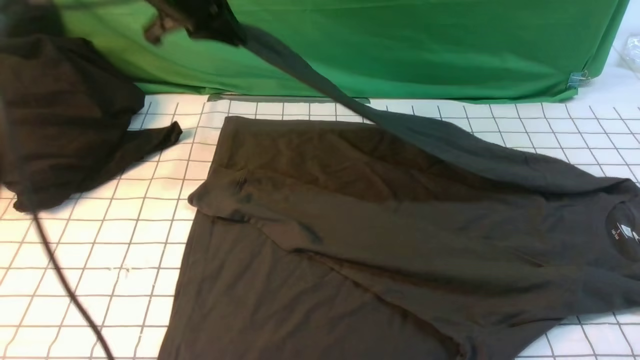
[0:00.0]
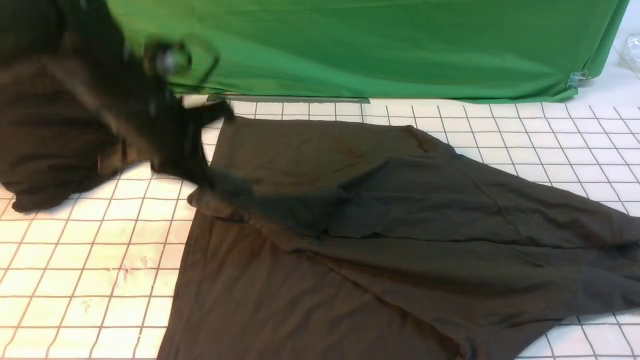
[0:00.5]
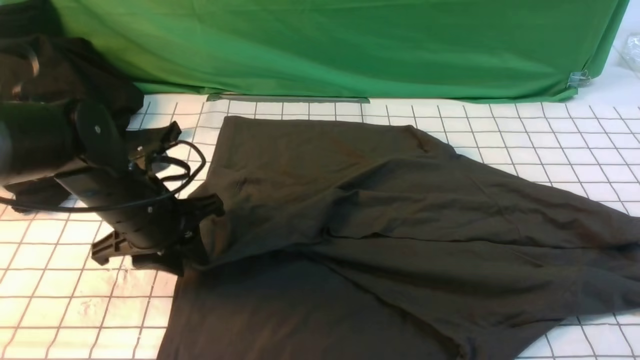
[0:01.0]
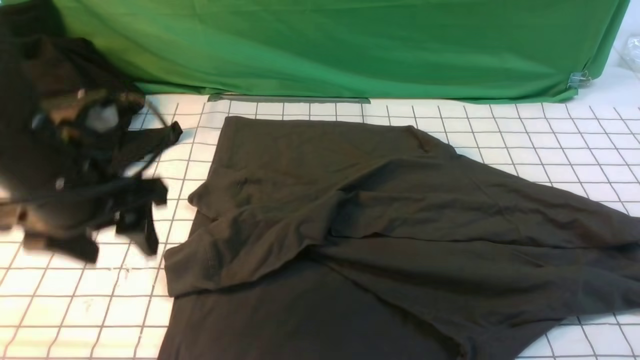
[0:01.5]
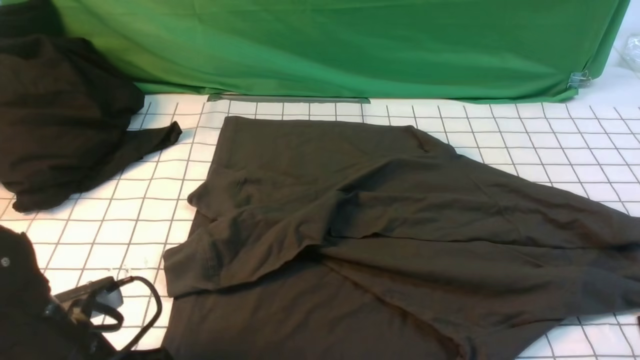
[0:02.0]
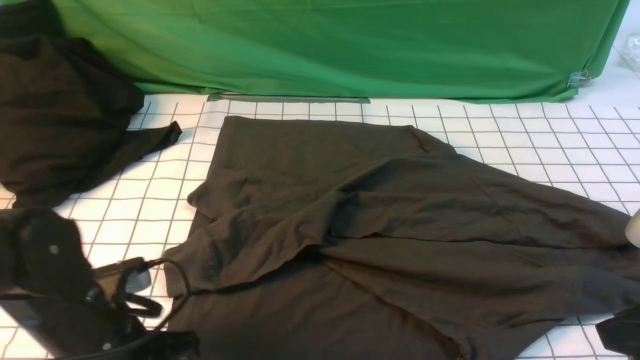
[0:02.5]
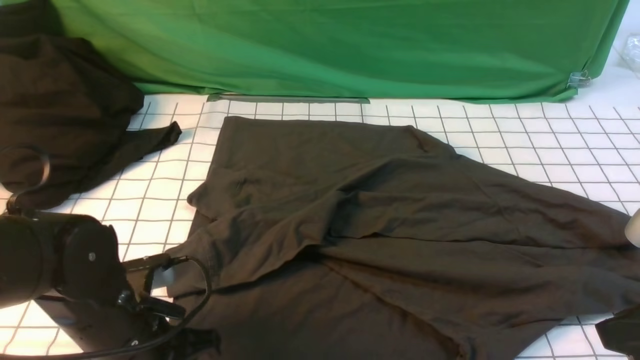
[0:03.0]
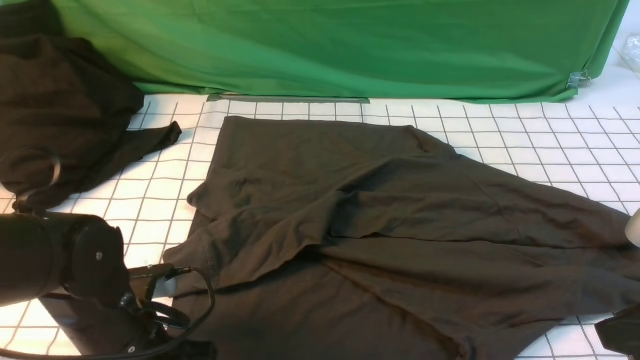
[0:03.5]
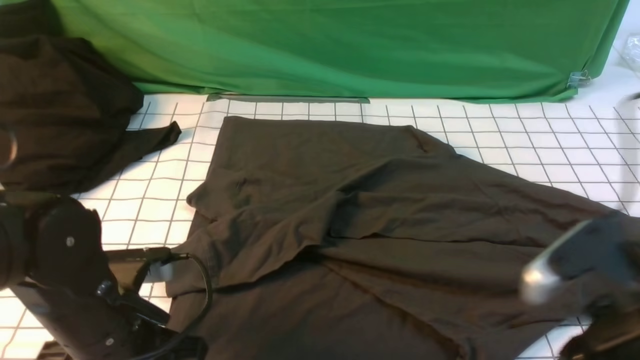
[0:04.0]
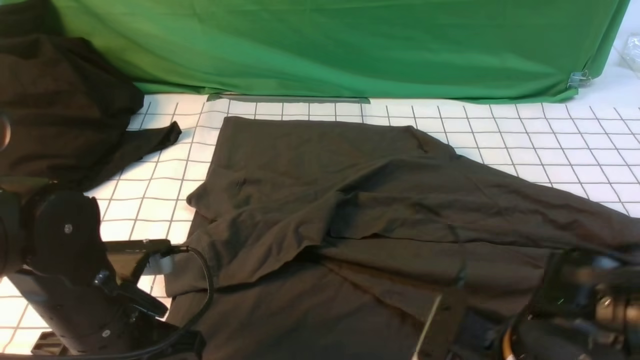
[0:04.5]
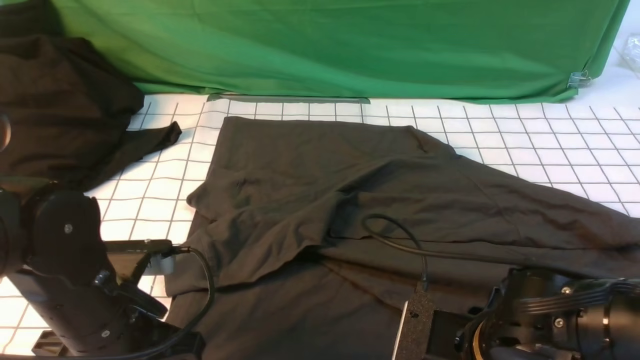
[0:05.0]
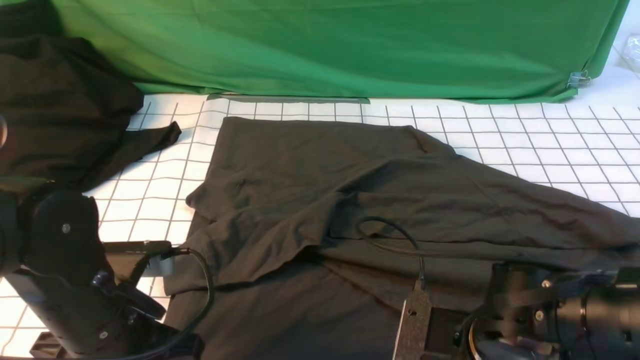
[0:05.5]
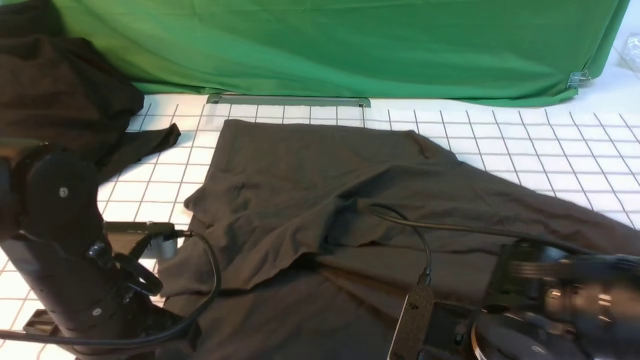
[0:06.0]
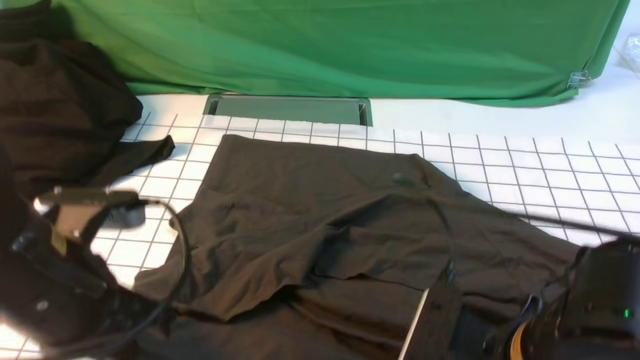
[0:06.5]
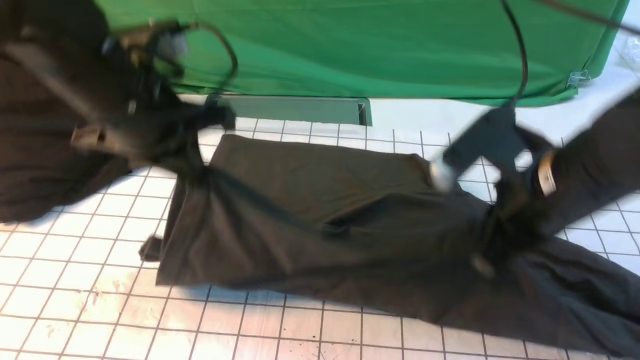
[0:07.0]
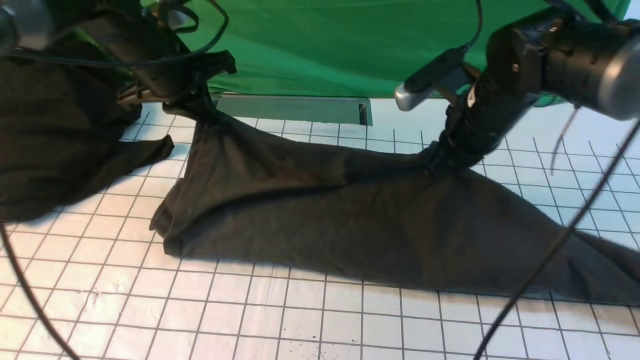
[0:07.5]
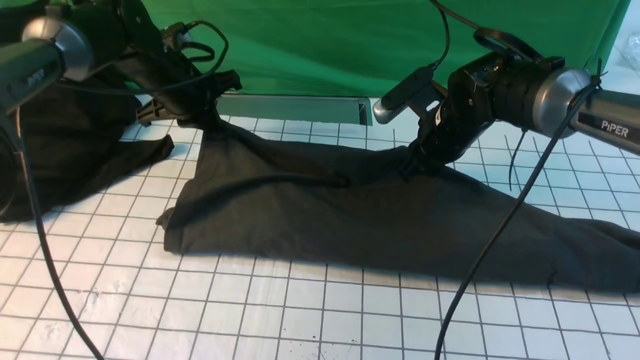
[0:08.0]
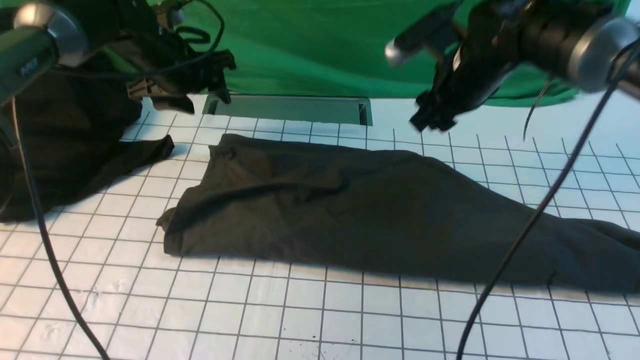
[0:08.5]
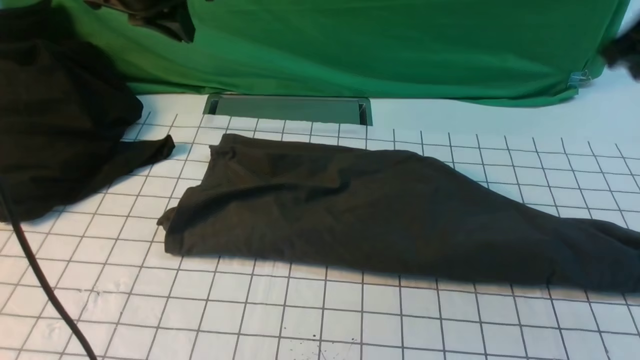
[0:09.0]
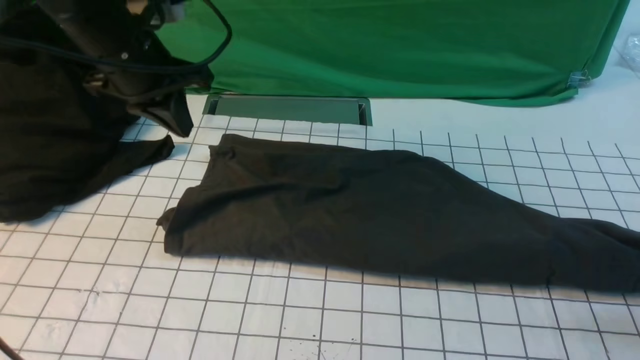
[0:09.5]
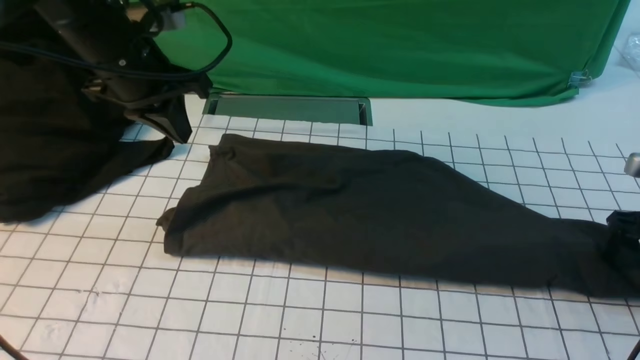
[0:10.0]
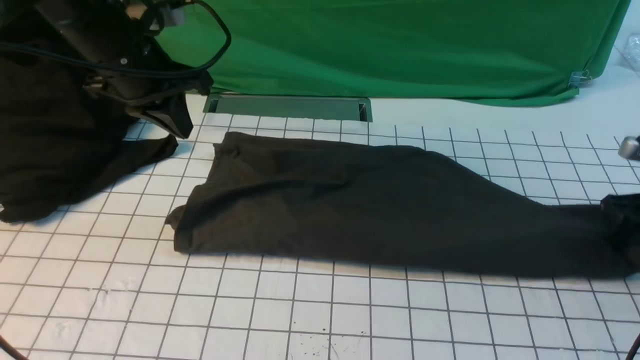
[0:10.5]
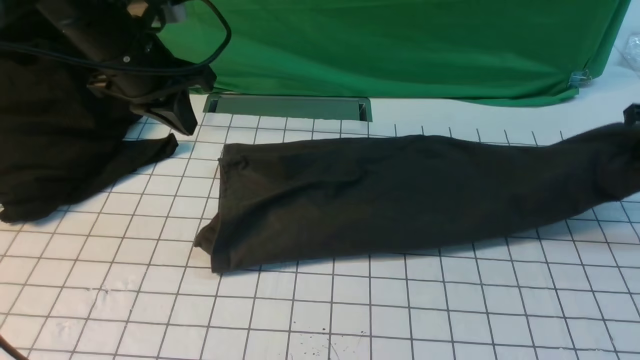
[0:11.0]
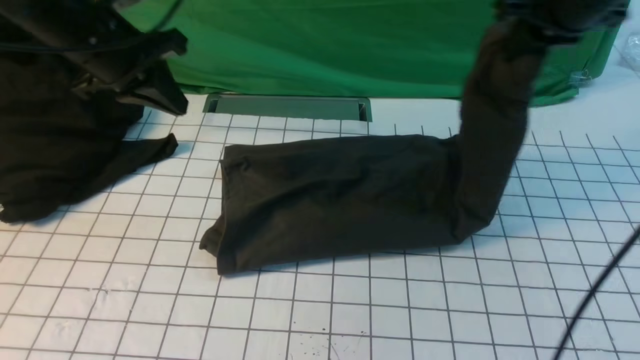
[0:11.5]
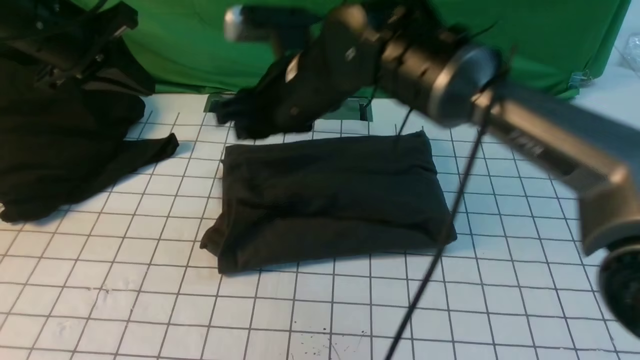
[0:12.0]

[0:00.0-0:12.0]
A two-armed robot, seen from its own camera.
Step, 0:00.0 to 0:01.0: use the left arm to drag and drop the cuff onto the cuff closest to the left arm.
Step, 0:01.5 to 0:05.5: use both arms simultaneously to clamp the lower edge of the clothing fabric.
Step, 0:06.0 to 0:08.0: use both arms to drag the lower edge of the fabric forward and fold it over the upper edge.
Step, 0:08.5 to 0:10.0: use the right arm to clamp the right edge of the fabric.
0:00.0 to 0:02.0: The left gripper goes some 35 cm backward and downward, and opens.
0:02.0 to 0:04.0: The left gripper closes its fingers. Meanwhile the right gripper goes about 10 cm to the left and downward.
0:04.0 to 0:06.0: The right gripper shifts about 10 cm to the left and downward, and closes up.
0:06.0 to 0:08.0: The grippers both shift forward by approximately 30 cm. The right gripper opens its fingers.
0:08.0 to 0:10.0: The left gripper goes about 10 cm backward and upward, and opens, then closes once more. Meanwhile the right gripper moves to the right, approximately 25 cm, and closes, then reopens.
0:10.0 to 0:12.0: The left gripper shifts about 10 cm to the left. Meanwhile the right gripper goes some 40 cm to the left, and closes and opens again.

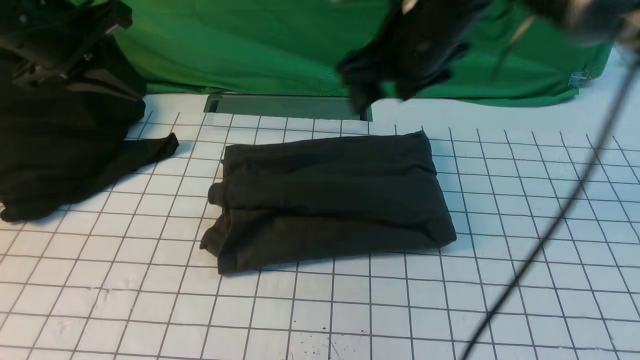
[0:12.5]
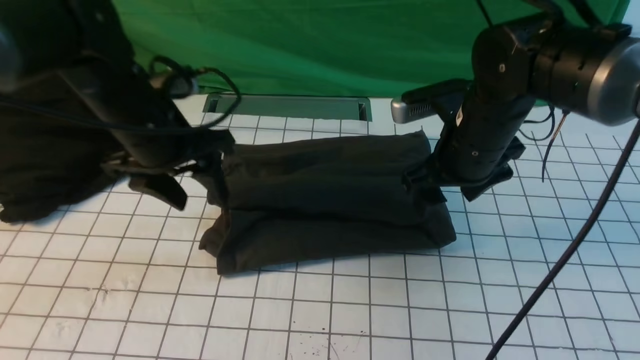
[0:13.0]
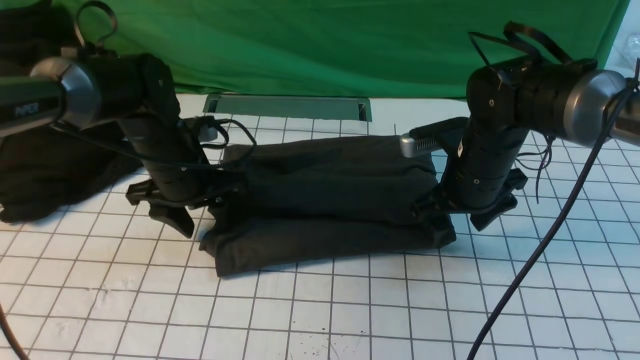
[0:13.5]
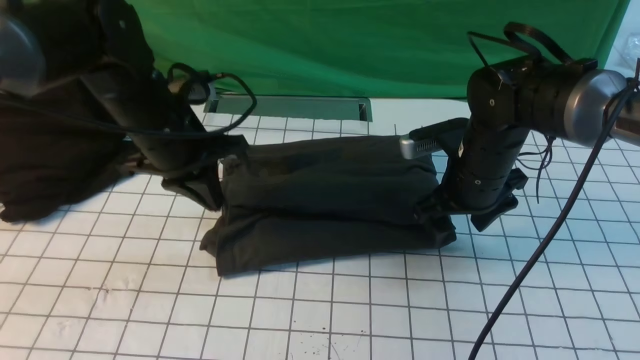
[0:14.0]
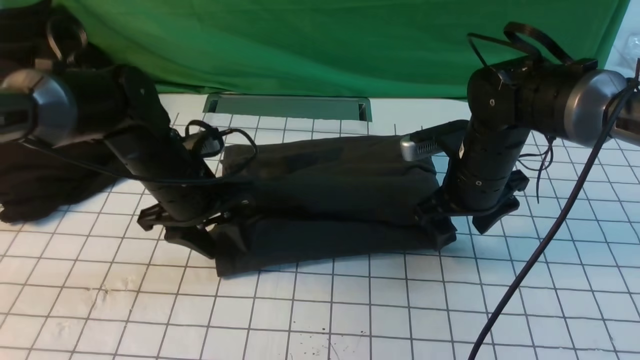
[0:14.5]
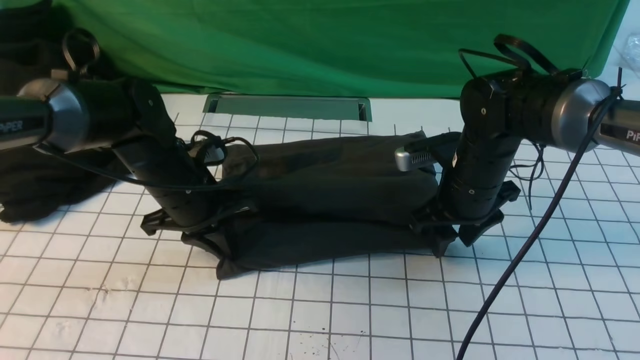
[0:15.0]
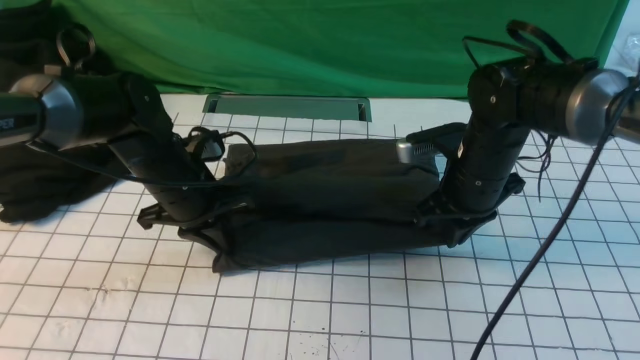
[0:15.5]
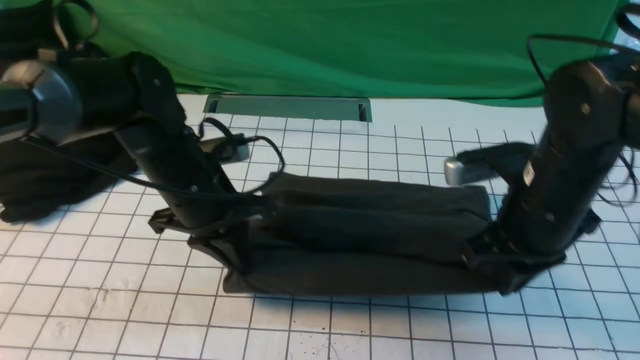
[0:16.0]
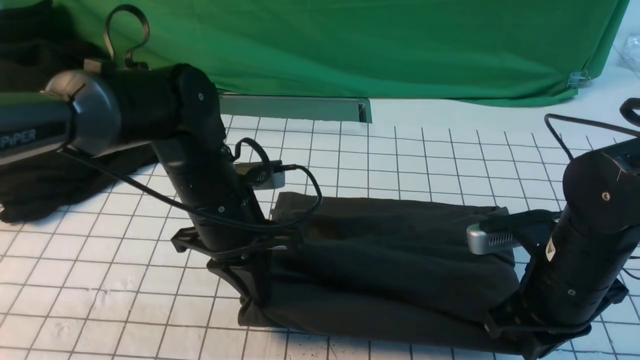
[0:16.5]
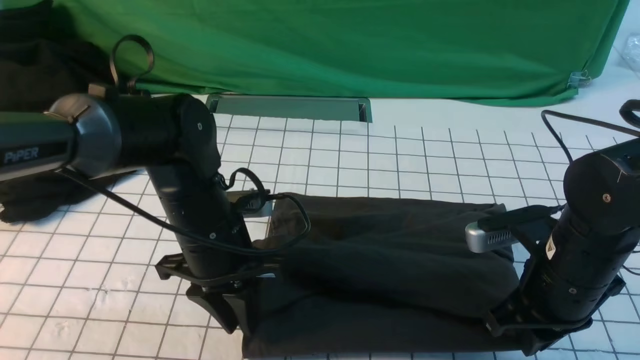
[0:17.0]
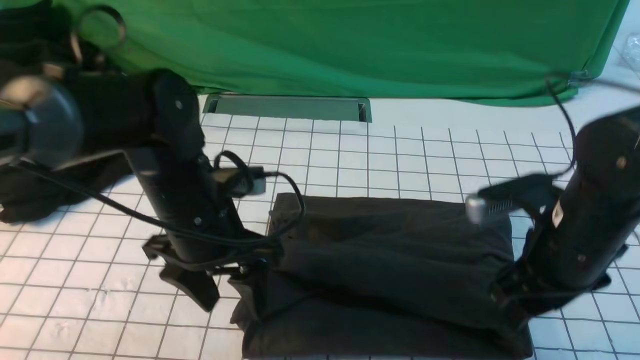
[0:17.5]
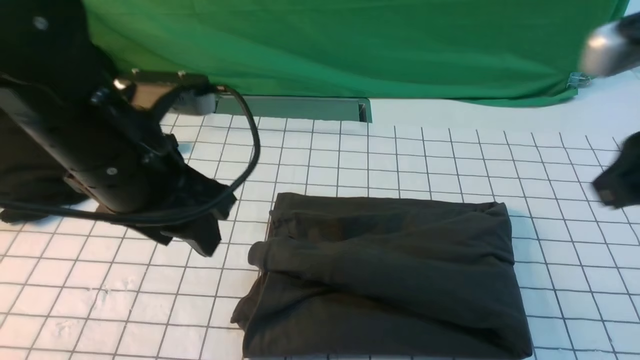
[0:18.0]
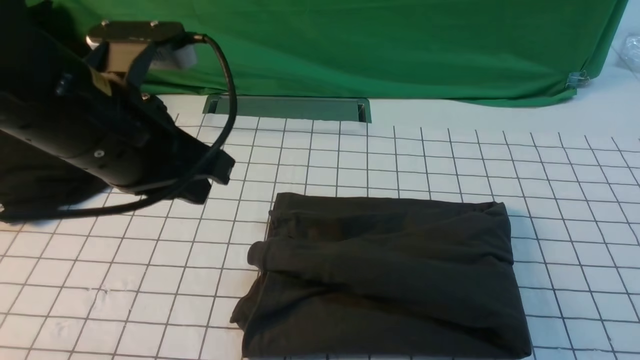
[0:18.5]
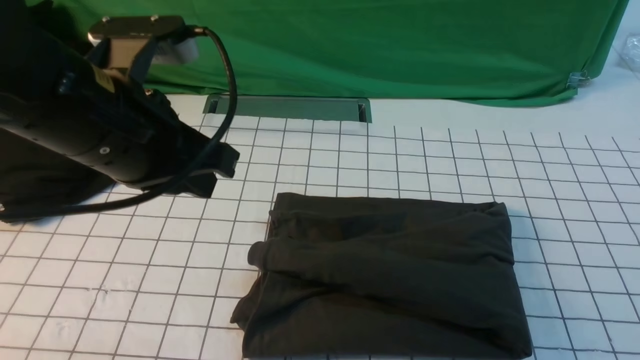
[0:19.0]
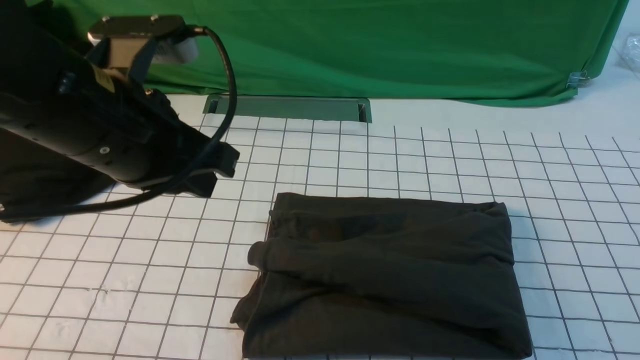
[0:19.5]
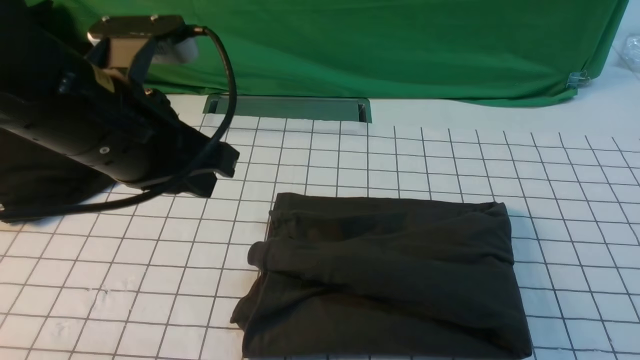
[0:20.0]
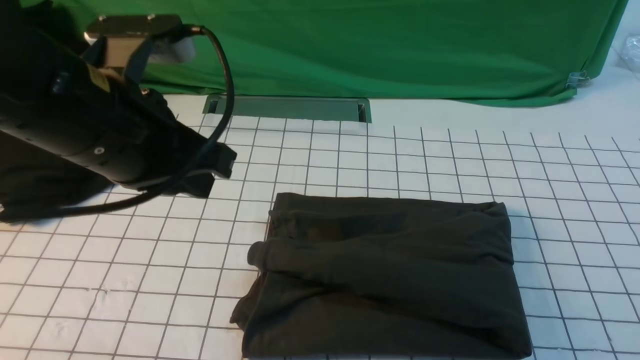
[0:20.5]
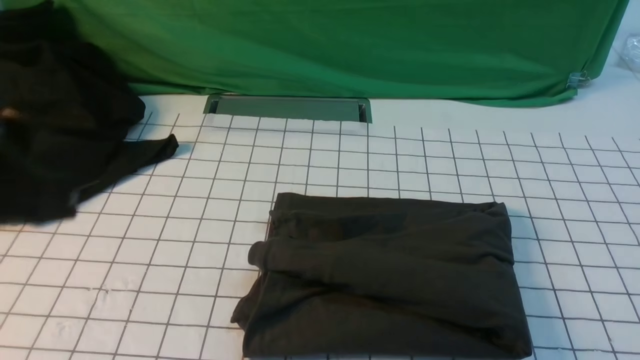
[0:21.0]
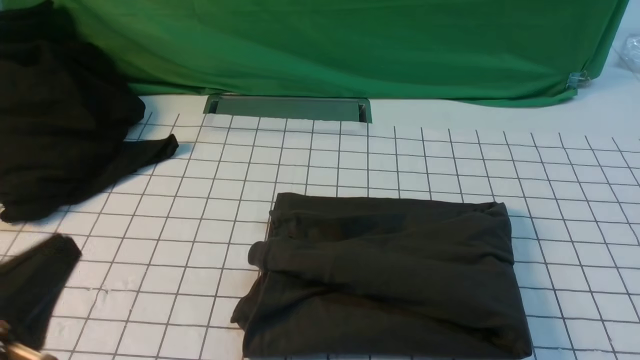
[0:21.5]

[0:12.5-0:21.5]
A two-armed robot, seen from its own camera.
0:12.5 to 0:14.5: The right gripper heads downward and to the right, covering about 15 cm; the left gripper swings up and down, some 15 cm each way, with 2 reversals, and opens up.
0:14.5 to 0:17.0: The right gripper is displaced backward by some 15 cm, and closes, while the left gripper goes roughly 10 cm backward and to the right, and closes, then reopens.
0:17.0 to 0:19.5: The left gripper travels upward by approximately 15 cm, and closes its fingers. Meanwhile the right gripper travels backward, upward and to the right by about 25 cm, and opens, then closes once more.
0:19.5 to 0:21.5: The left gripper travels backward, downward and to the left by about 20 cm, while the right gripper moves downward, approximately 15 cm.
